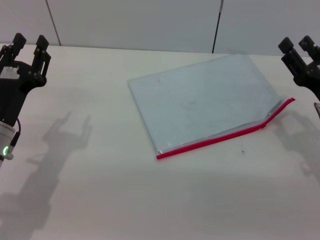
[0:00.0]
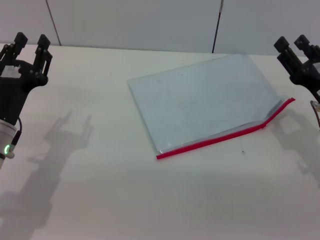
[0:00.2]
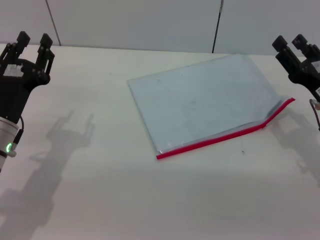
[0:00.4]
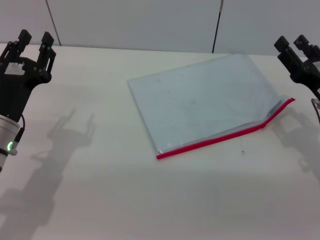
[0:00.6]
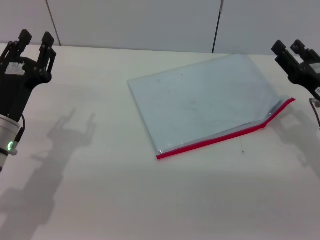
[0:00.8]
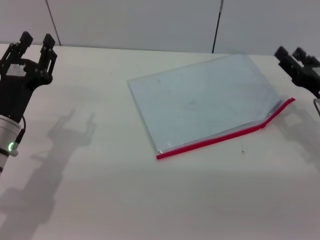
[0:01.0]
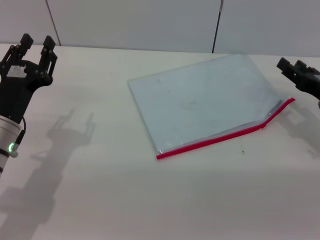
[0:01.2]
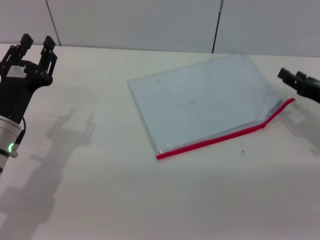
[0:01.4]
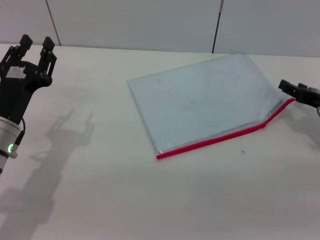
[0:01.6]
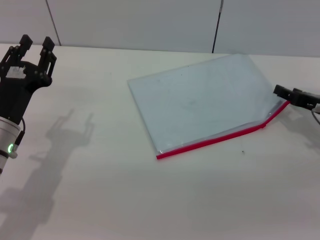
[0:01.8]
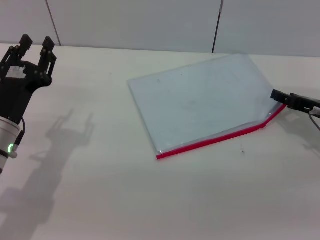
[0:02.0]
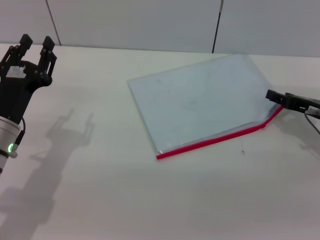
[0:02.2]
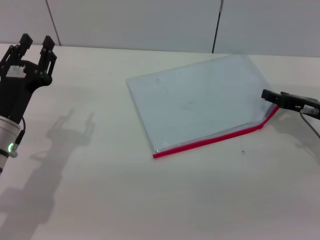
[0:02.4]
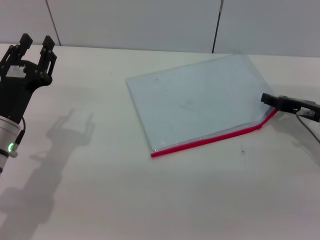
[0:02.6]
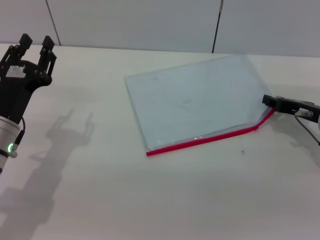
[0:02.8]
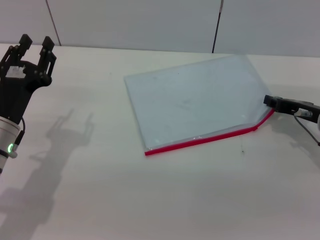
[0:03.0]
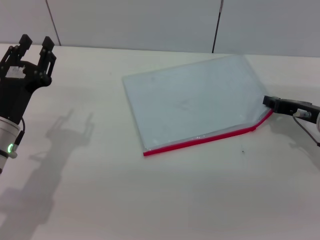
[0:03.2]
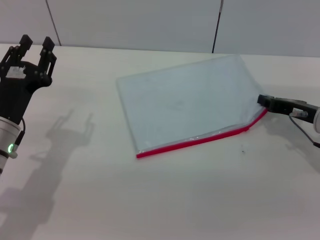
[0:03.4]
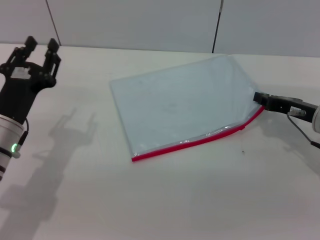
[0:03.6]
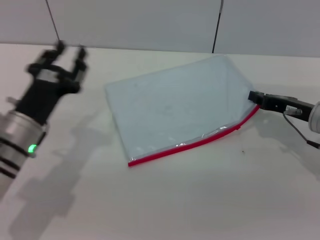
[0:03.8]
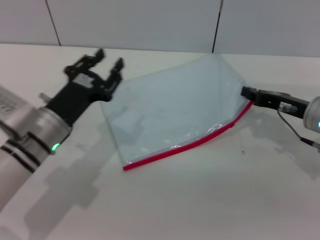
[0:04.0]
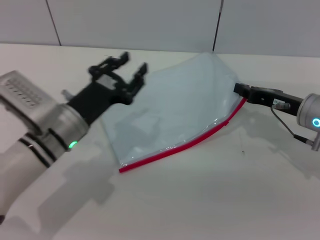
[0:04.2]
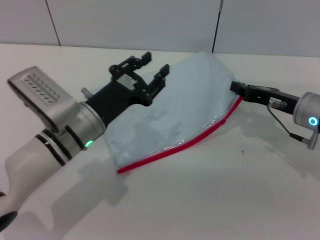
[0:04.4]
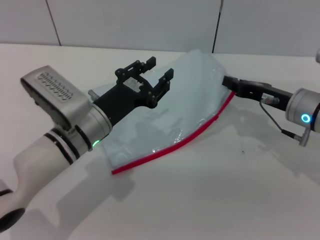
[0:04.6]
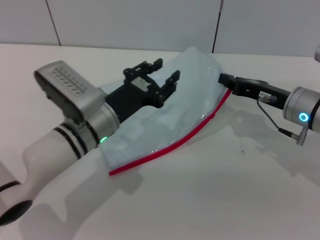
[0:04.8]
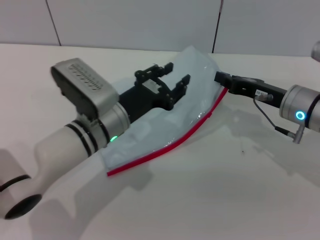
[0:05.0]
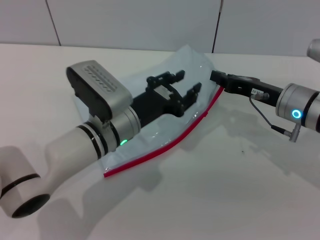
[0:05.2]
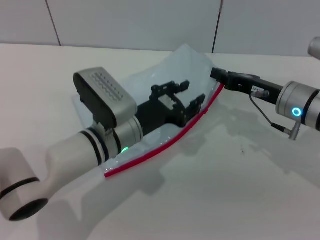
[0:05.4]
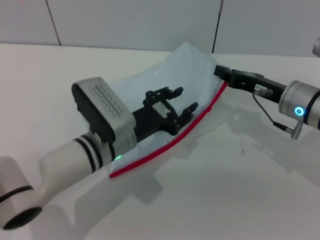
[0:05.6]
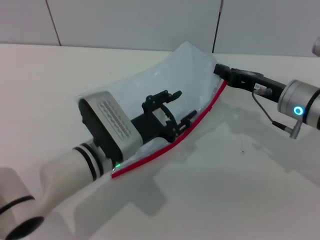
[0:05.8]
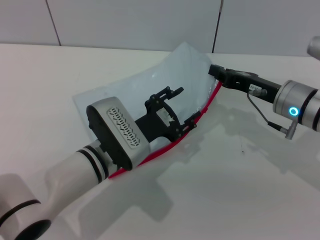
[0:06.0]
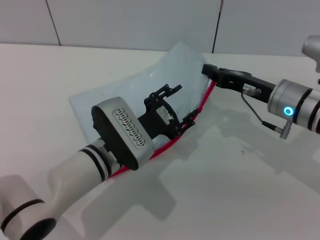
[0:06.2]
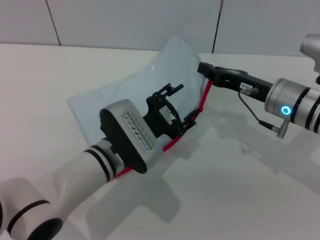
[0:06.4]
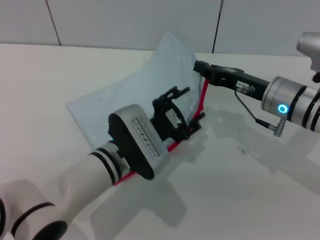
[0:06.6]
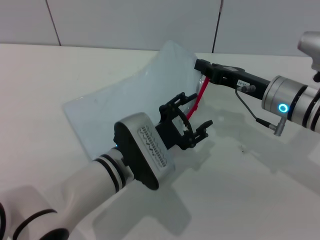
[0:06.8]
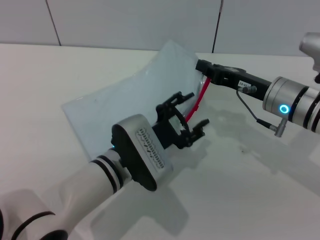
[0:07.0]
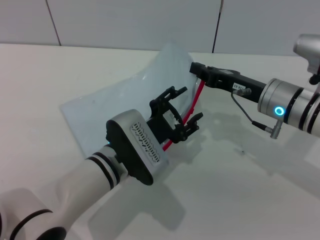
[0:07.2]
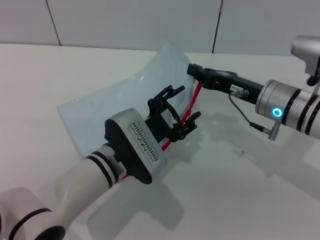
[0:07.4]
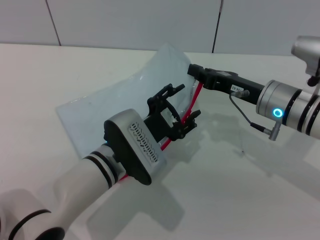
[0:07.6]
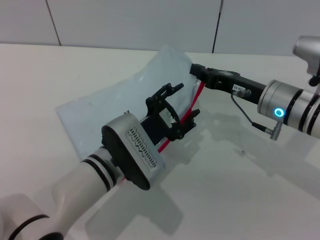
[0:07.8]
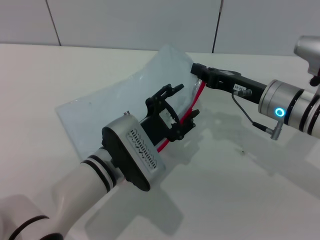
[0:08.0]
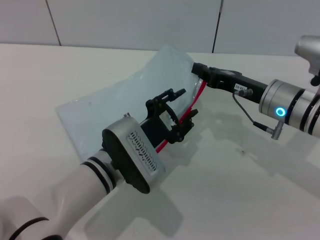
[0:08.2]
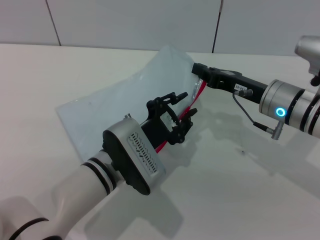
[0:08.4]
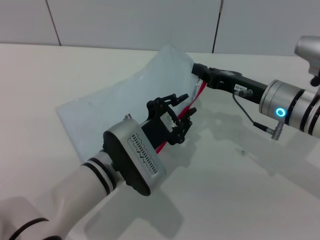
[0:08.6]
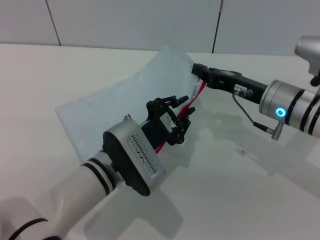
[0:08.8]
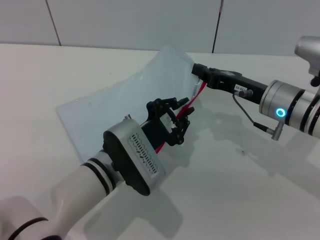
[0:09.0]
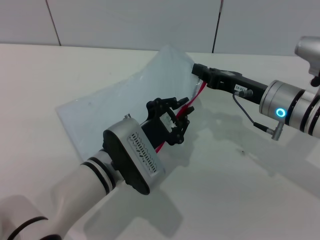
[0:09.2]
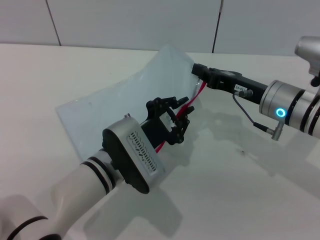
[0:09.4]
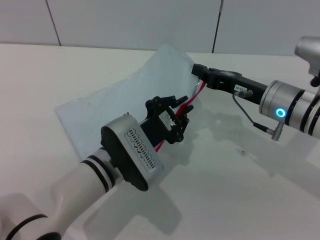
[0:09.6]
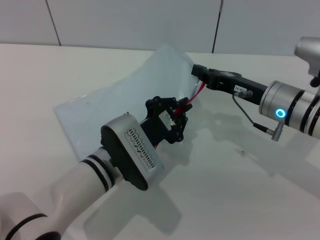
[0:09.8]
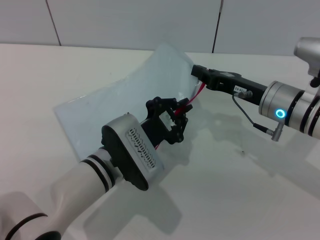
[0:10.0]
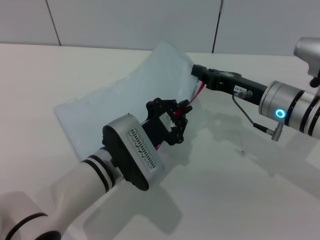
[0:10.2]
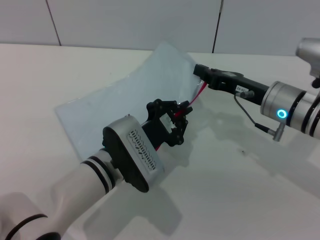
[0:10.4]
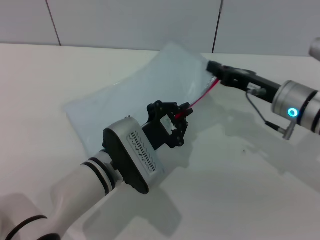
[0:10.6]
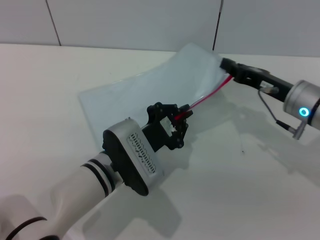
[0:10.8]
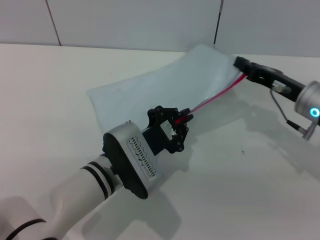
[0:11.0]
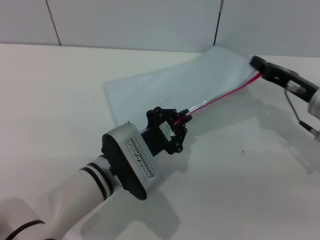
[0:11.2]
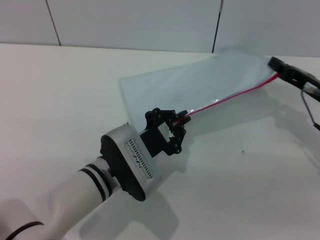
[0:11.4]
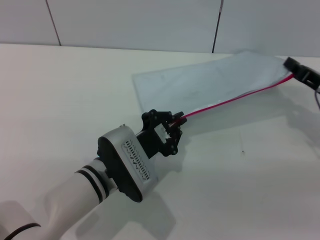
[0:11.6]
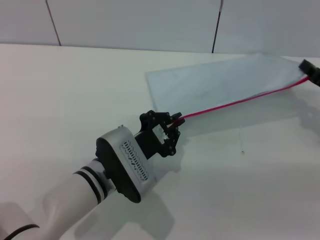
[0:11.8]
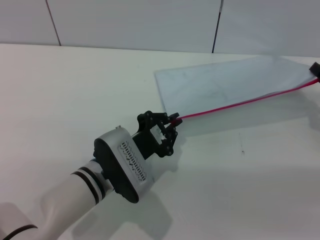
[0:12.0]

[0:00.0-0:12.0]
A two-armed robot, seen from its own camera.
Step, 0:00.0 to 0:05.4: Pick up the transparent plastic bag with the right gripper.
0:00.0 to 0:01.6: The right gripper heads forward, covering some 5 cm.
0:01.6 to 0:03.0: The right gripper closes.
0:03.0 to 0:04.4: The right gripper closes up, while the left gripper goes roughly 10 cm to the right.
0:04.4 to 0:06.0: The left gripper heads to the right, covering about 5 cm.
0:06.0 to 0:07.6: The grippers stay close to where they were, moving slightly.
0:07.6 to 0:09.0: The left gripper closes up.
0:09.0 to 0:10.4: Both grippers stay about where they are.
0:10.4 to 0:12.0: The right gripper goes approximately 15 cm to the right.

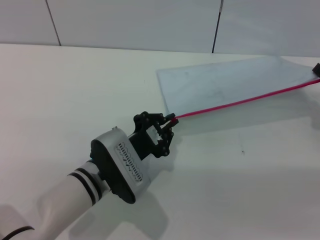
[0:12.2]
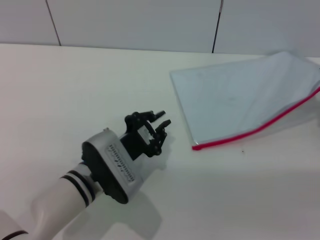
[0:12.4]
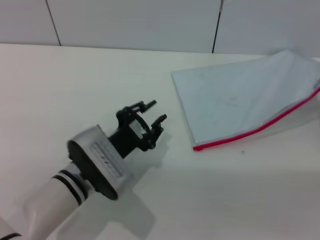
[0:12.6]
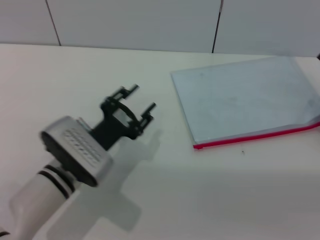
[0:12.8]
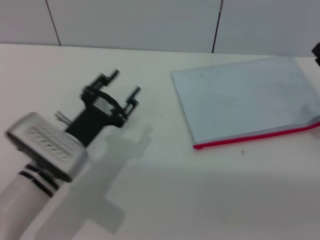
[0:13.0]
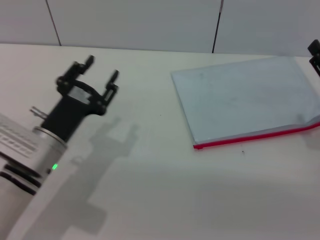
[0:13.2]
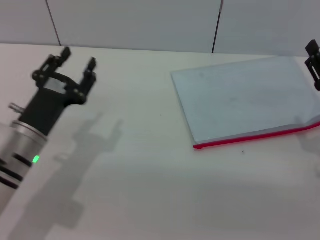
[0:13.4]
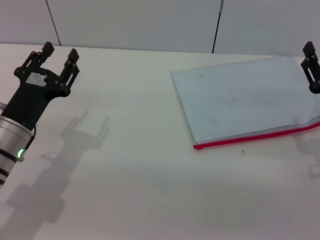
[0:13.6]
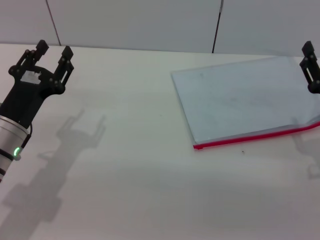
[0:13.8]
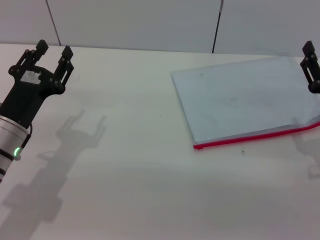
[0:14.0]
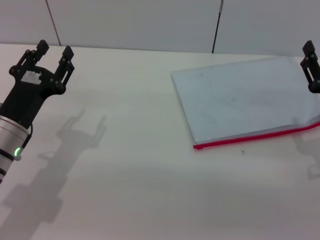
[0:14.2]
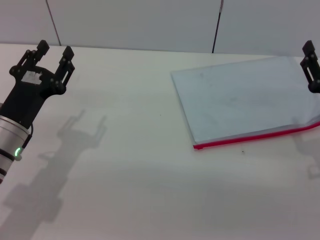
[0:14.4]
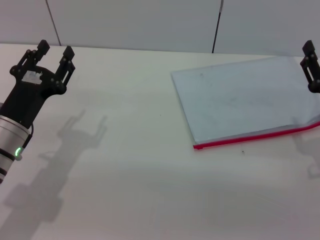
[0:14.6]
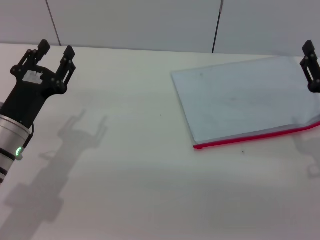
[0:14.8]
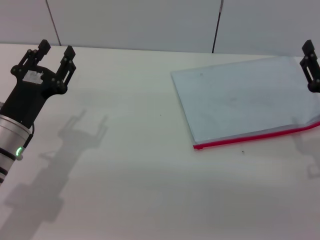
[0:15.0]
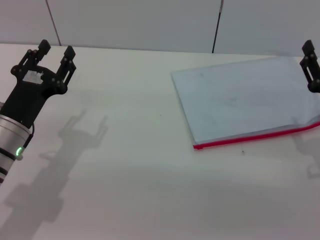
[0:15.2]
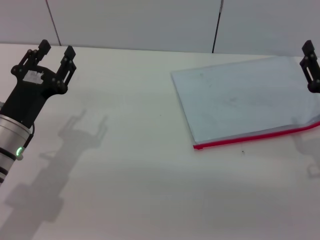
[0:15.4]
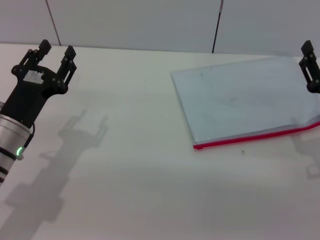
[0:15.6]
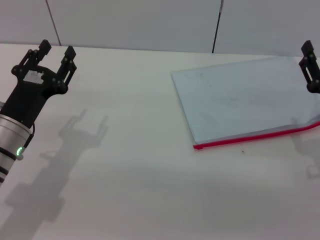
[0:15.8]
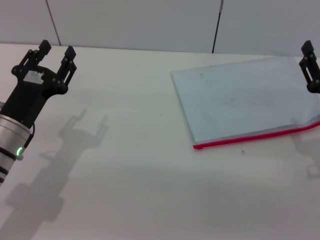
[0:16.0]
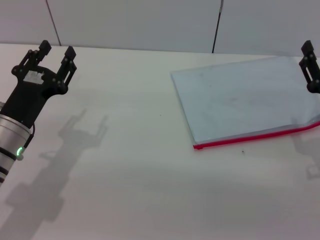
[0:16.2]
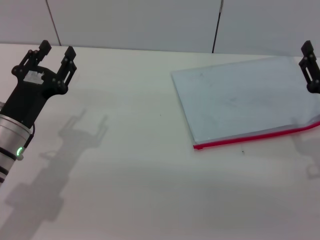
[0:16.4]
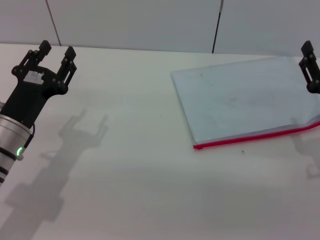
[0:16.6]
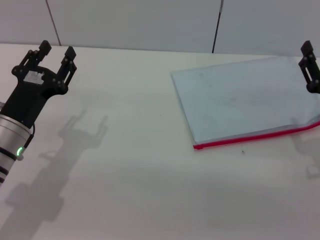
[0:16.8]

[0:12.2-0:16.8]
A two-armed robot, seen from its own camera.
Step, 0:12.6 to 0:13.0: Place the transparent plastic bag.
0:12.2 to 0:13.8: The left gripper is displaced to the left by approximately 15 cm, and opens up. The right gripper goes some 10 cm to the left and backward, and opens up.
0:13.8 to 0:16.8: Neither gripper changes place.
